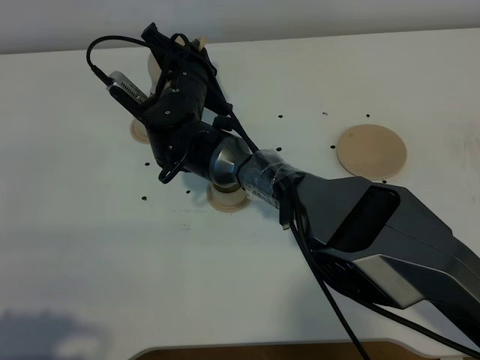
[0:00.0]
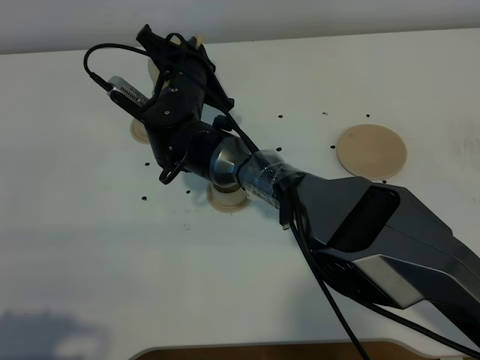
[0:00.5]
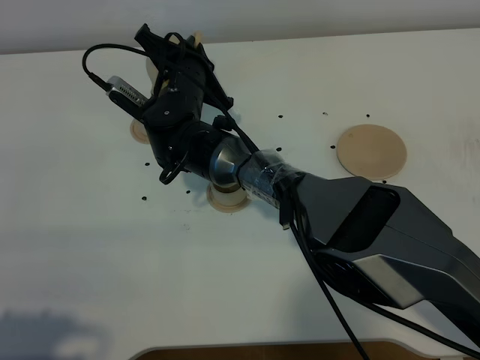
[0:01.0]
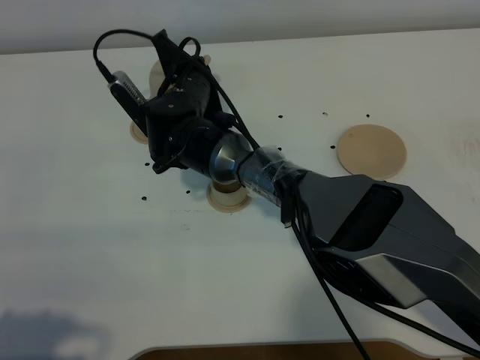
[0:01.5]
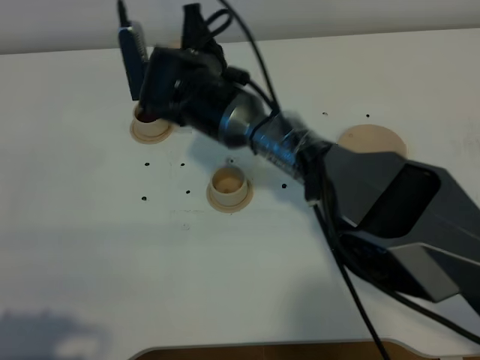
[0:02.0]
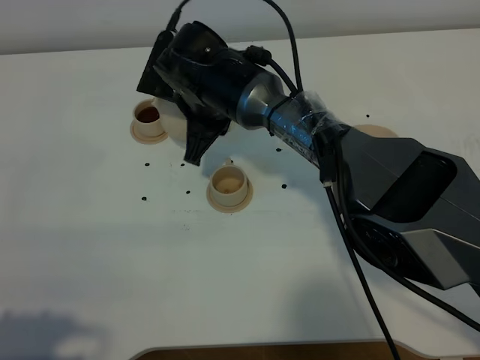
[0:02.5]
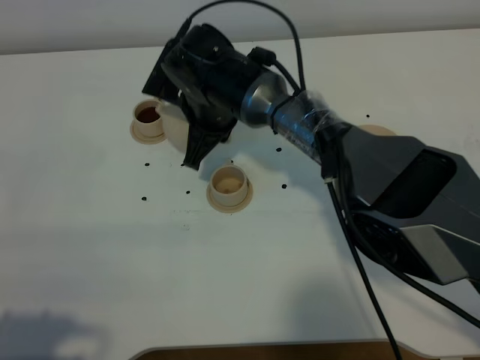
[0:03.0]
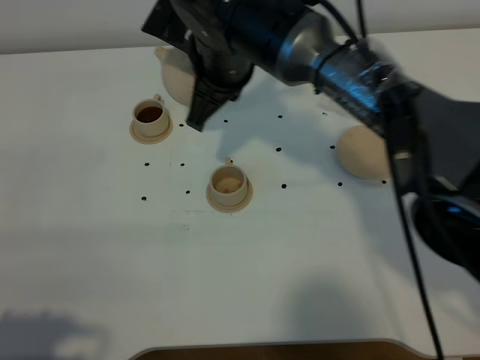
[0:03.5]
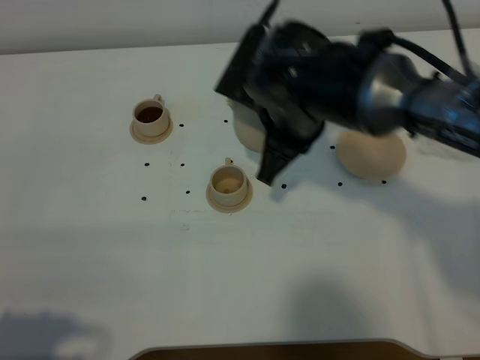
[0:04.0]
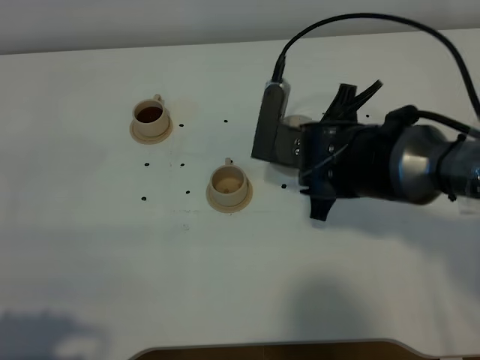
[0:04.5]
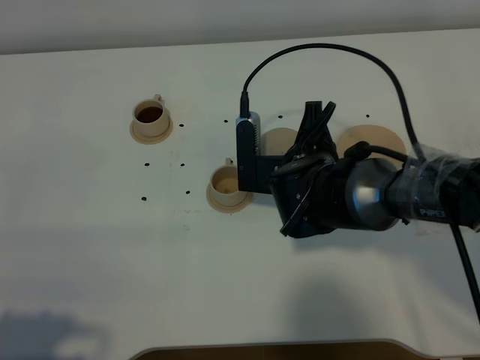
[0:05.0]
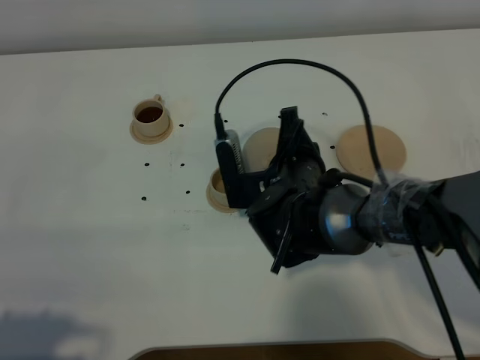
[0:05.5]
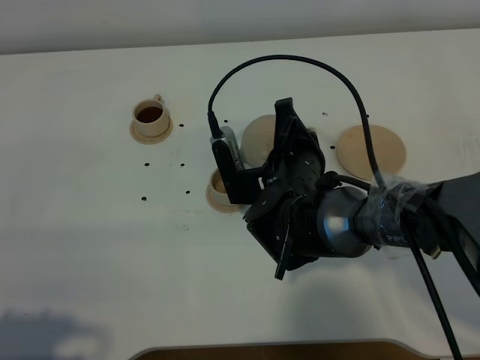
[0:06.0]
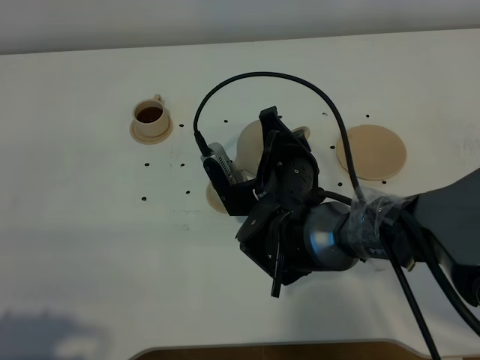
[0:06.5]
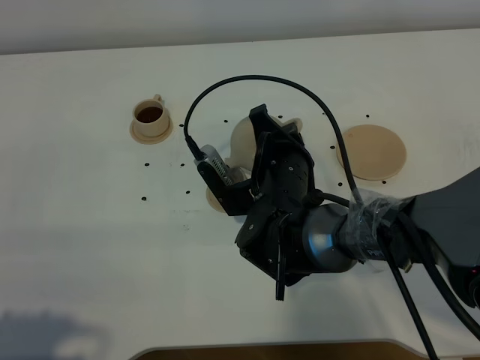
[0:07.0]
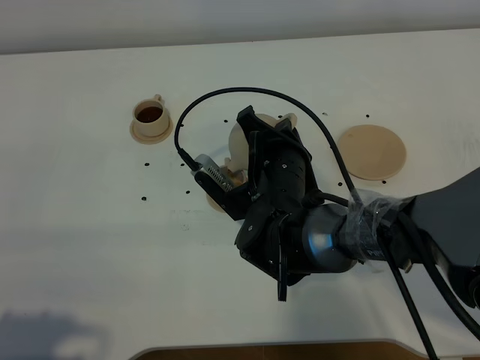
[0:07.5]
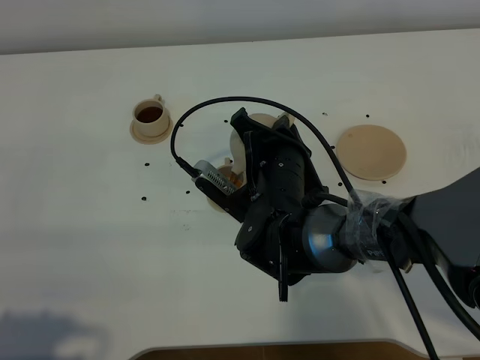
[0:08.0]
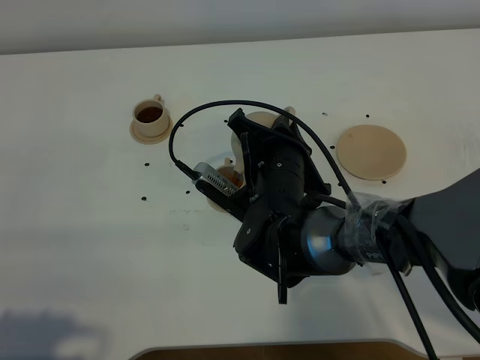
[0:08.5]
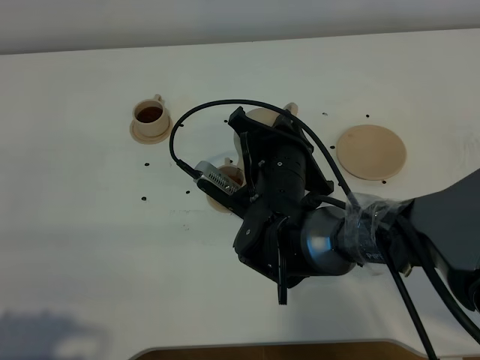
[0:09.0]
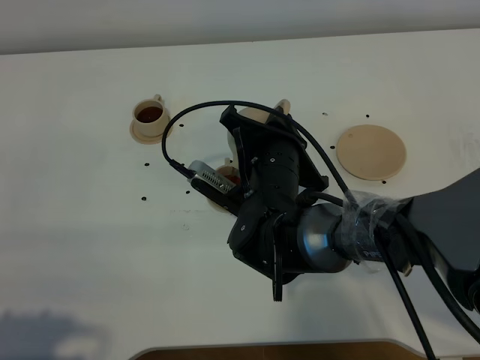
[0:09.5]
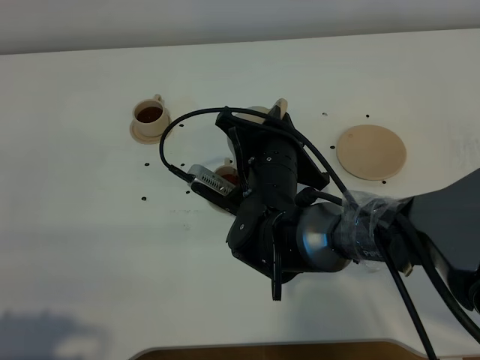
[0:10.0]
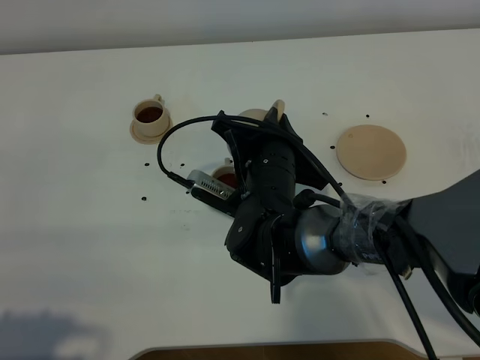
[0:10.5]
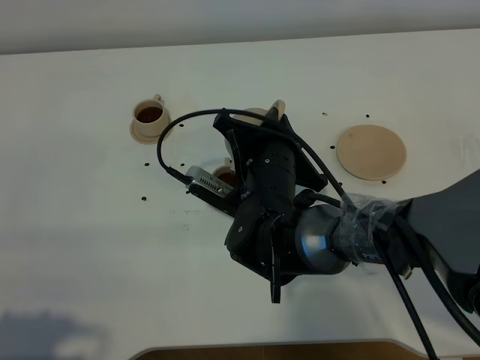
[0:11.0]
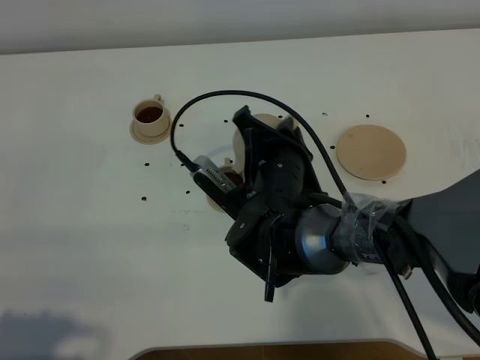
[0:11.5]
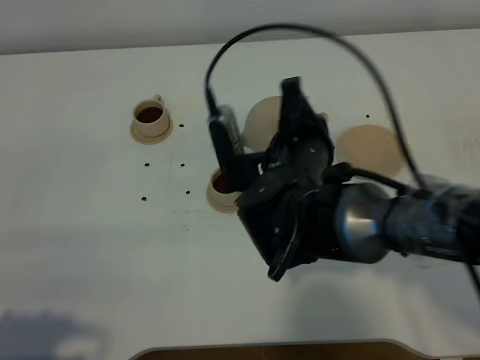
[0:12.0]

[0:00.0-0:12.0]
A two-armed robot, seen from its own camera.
Task of the whole recording: grasp the brown teapot and pour the tea into the two brown teacups one by one, put the brown teapot back in its original place.
0:00.0 to 0:02.0: The right gripper is displaced upward by roughly 5 cm.
0:02.0 to 0:04.0: The right gripper moves to the right and backward, approximately 15 cm.
0:04.0 to 0:06.0: The right gripper moves downward, about 10 cm.
0:08.0 to 0:10.0: The grippers stay close to where they were, moving slightly.
0:10.0 to 0:12.0: The right gripper travels upward by about 5 cm.

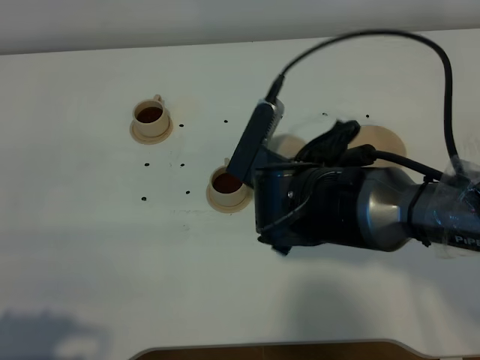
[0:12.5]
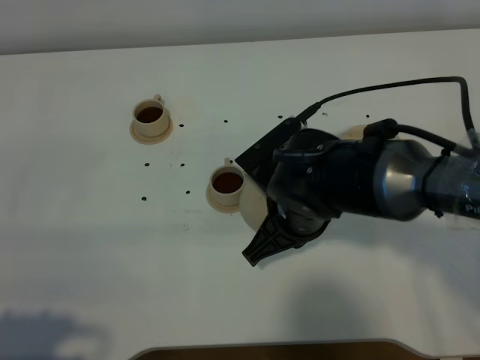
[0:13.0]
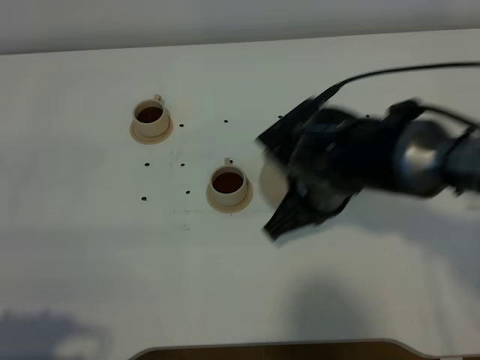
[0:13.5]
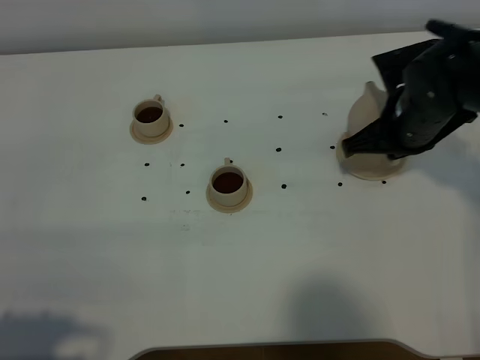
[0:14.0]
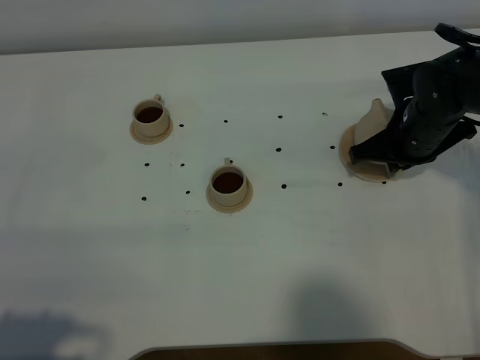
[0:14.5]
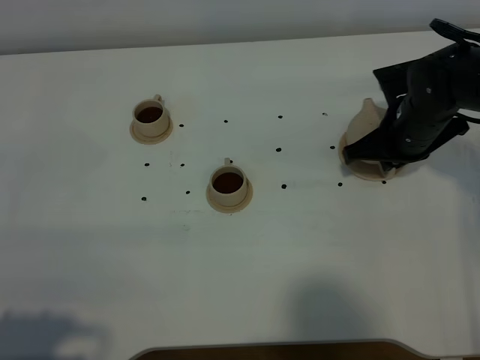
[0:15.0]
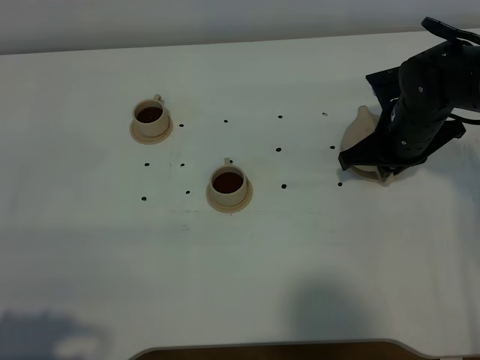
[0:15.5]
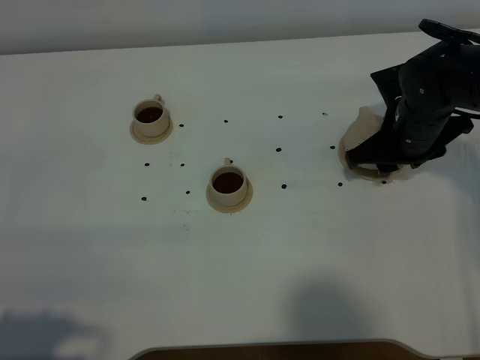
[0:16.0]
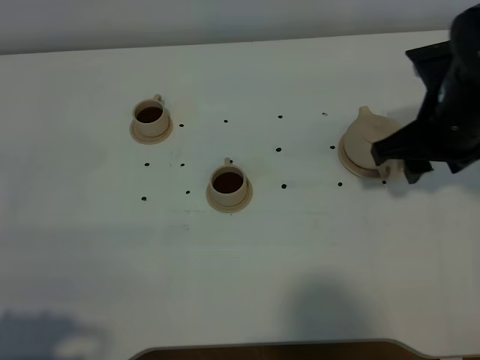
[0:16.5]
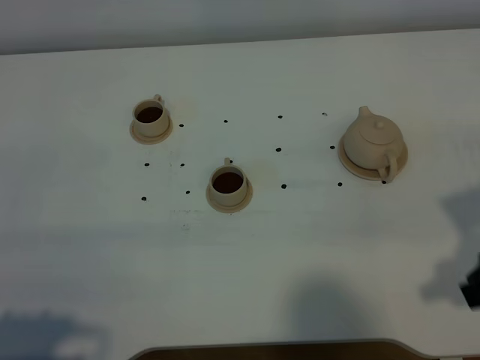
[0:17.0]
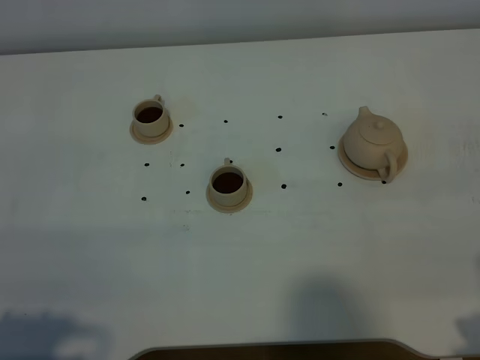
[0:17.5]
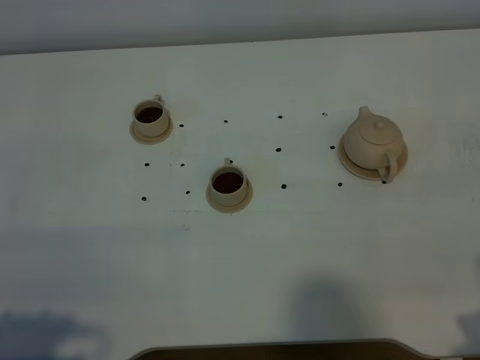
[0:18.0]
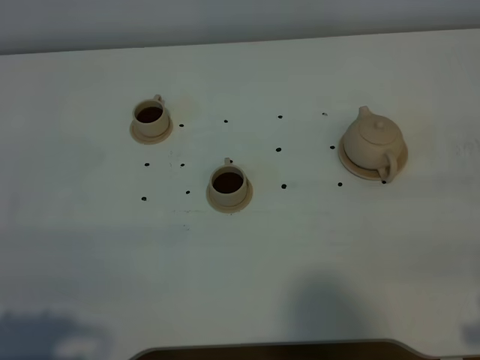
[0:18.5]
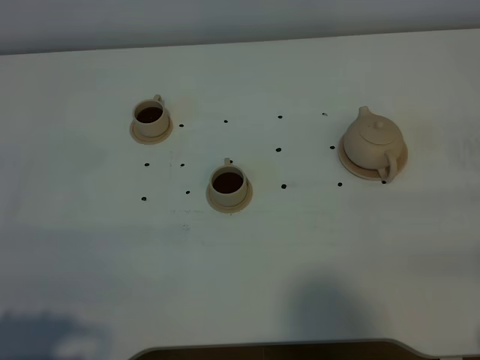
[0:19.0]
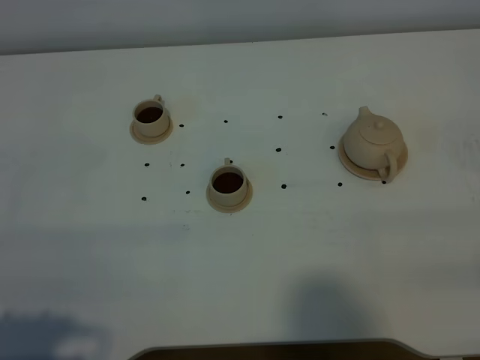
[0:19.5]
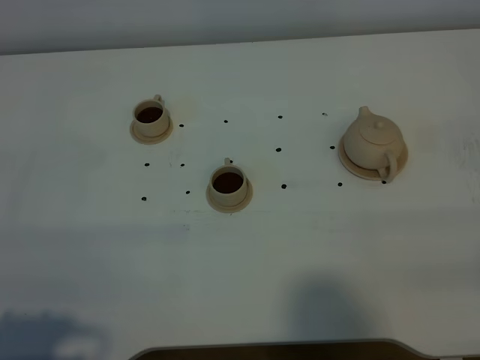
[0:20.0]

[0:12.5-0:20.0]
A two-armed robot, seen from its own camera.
Task of the whole recording: grasp the brown teapot and pour the tea into the two brown teacups one by one, put the brown teapot back in its original place.
0:12.5 to 0:14.5: The right gripper goes about 20 cm to the right and forward.
0:14.5 to 0:16.5: The right gripper is displaced upward and backward by approximately 15 cm, and opens its fingers.
0:16.5 to 0:18.0: The right gripper moves backward, approximately 25 cm.

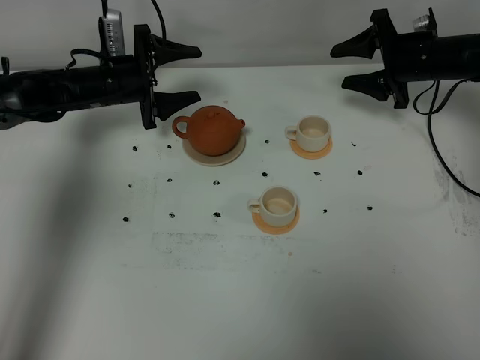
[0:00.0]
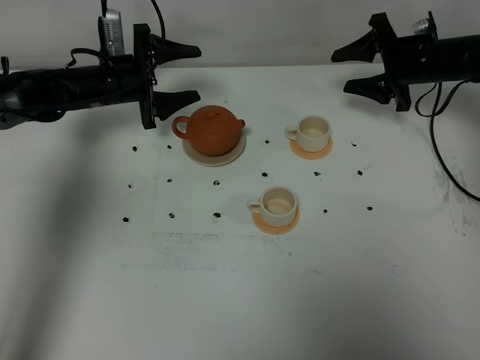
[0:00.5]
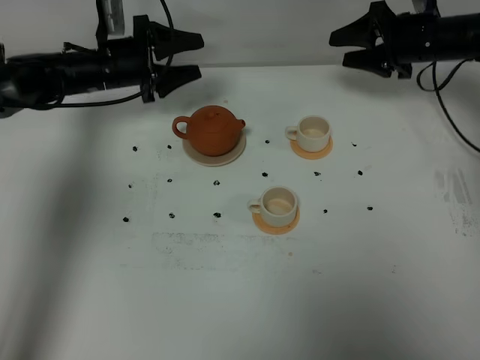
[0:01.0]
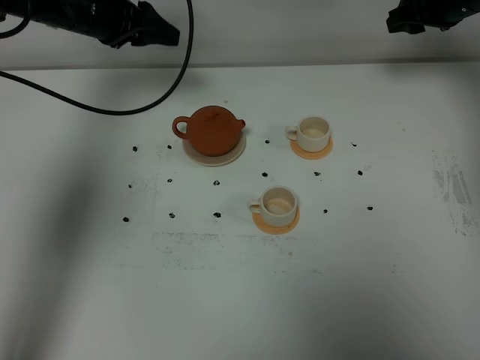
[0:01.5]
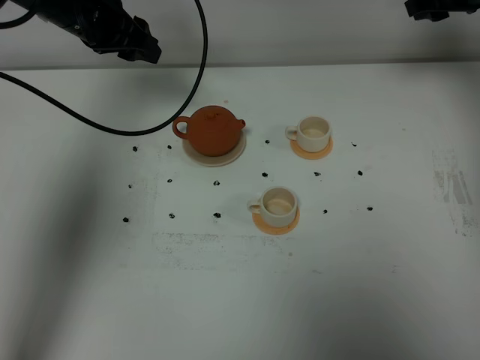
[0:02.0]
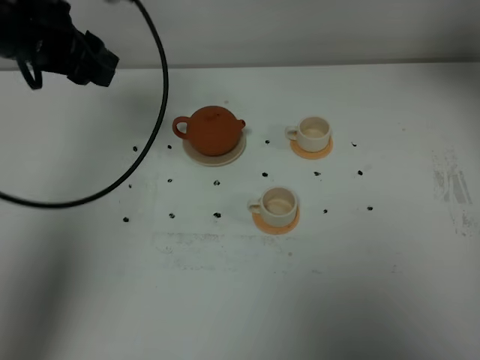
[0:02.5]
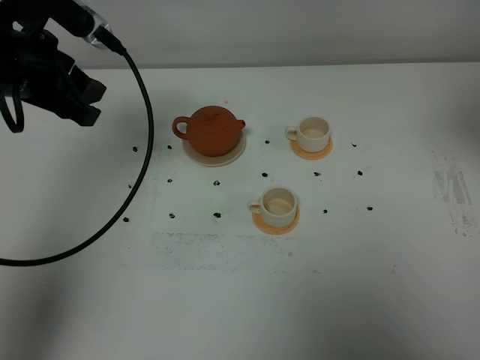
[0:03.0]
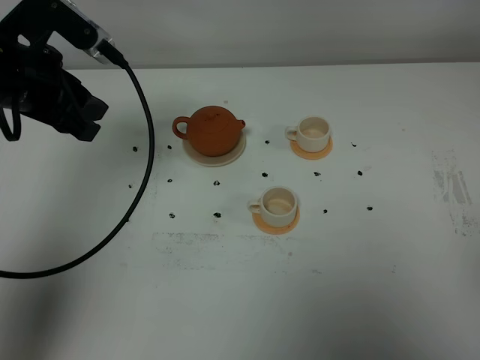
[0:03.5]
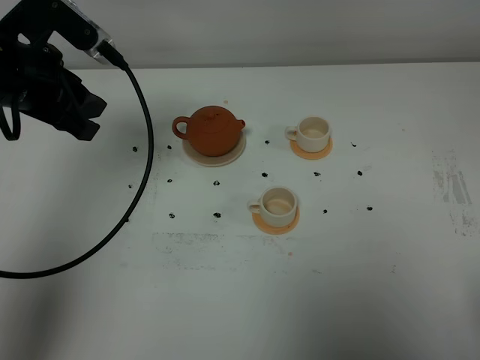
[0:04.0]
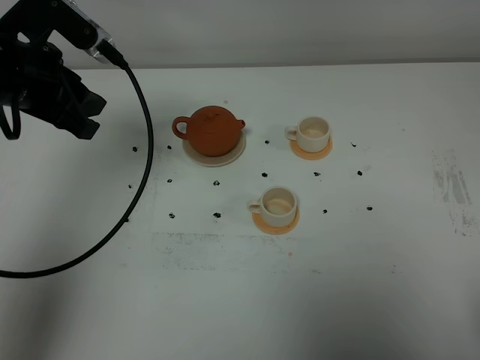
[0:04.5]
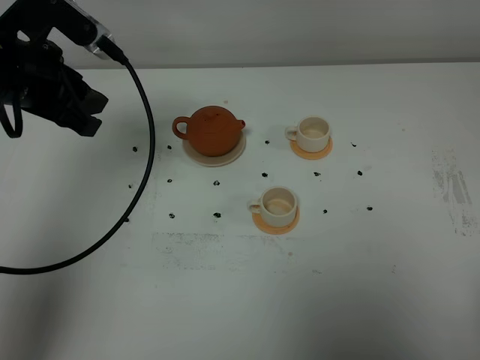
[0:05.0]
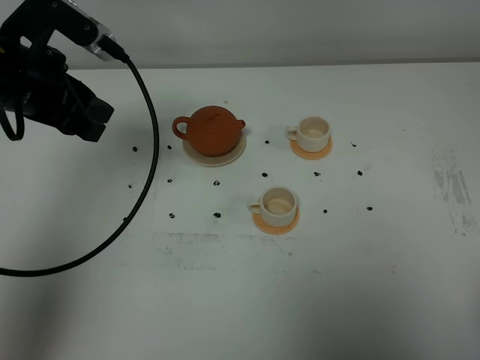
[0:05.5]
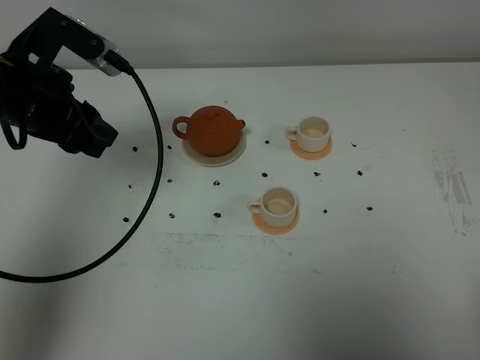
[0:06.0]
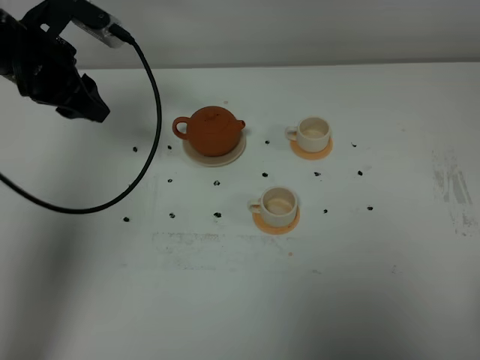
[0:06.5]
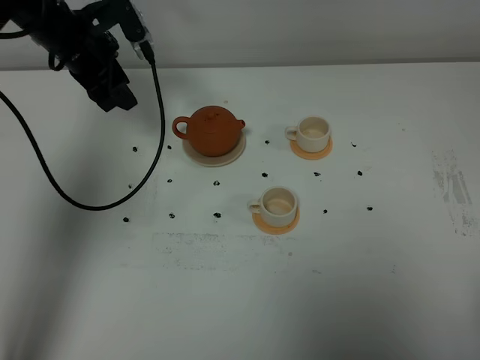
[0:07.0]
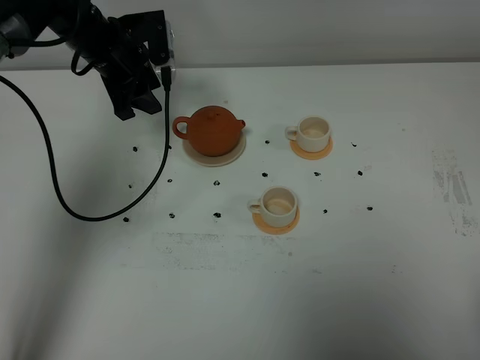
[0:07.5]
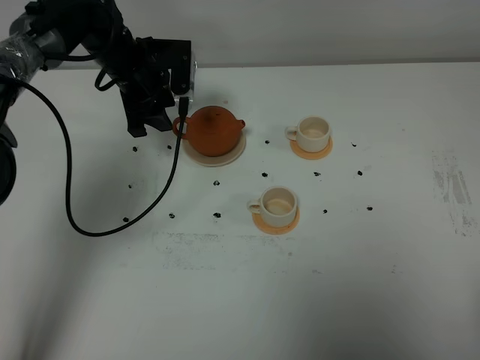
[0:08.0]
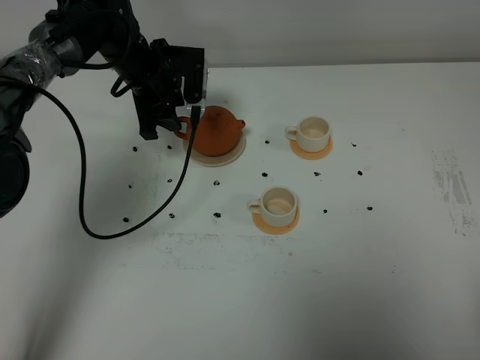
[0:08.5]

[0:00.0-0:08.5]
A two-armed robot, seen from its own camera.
Task of the whole recording: grasp the brown teapot and pour the tea into the two white teacups one by one, put the brown teapot back in its original place.
0:00.0 to 0:02.0: Both grippers travel together upward, roughly 15 cm. The right gripper closes.
0:02.0 to 0:04.0: The right gripper goes some 50 cm backward, and closes. Meanwhile the left gripper moves backward, about 15 cm.
0:04.0 to 0:06.5: The left gripper is displaced forward by about 10 cm.
0:06.5 to 0:08.5: The left gripper goes approximately 15 cm downward, to the right and forward.
